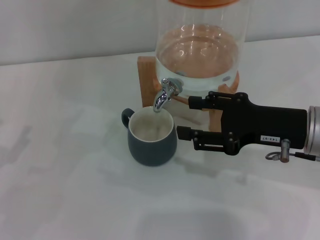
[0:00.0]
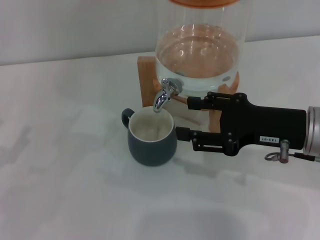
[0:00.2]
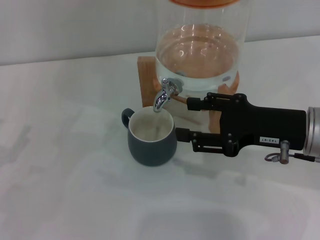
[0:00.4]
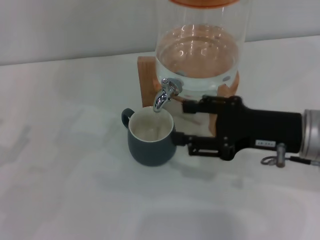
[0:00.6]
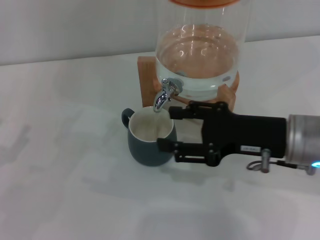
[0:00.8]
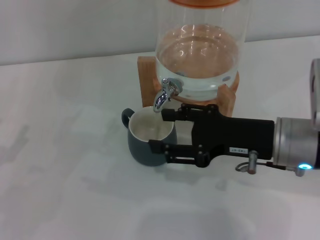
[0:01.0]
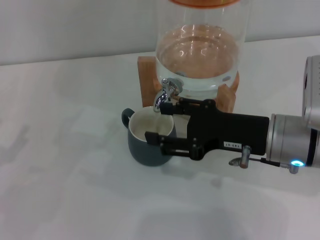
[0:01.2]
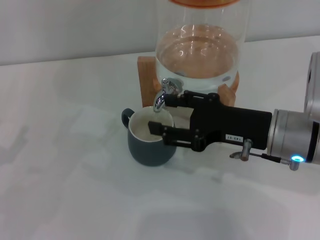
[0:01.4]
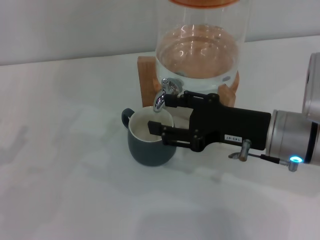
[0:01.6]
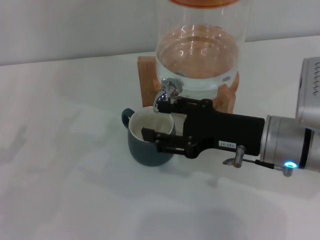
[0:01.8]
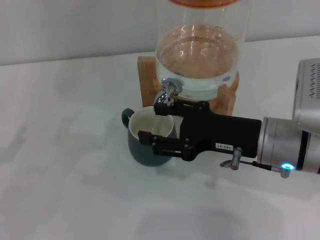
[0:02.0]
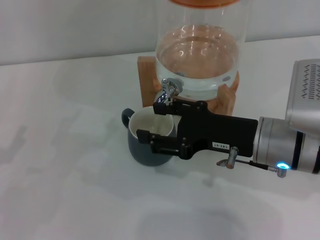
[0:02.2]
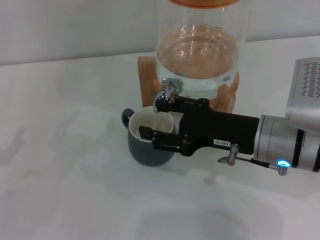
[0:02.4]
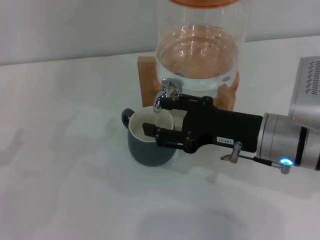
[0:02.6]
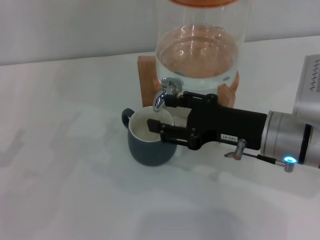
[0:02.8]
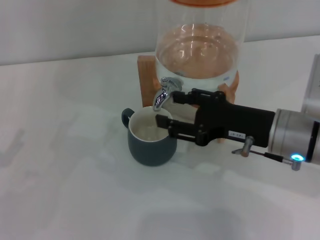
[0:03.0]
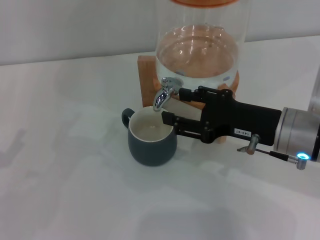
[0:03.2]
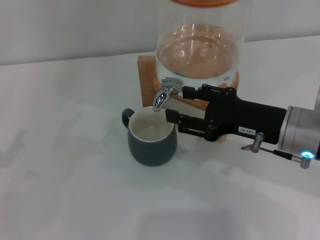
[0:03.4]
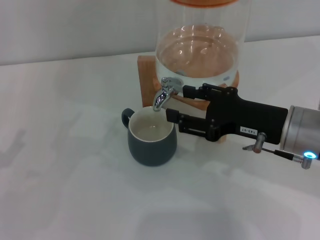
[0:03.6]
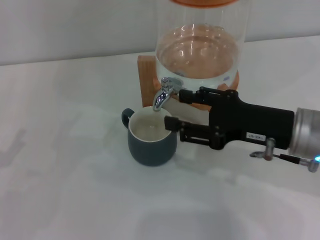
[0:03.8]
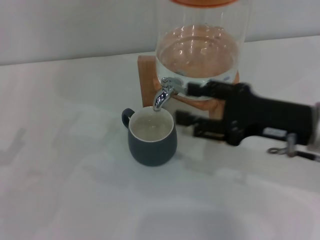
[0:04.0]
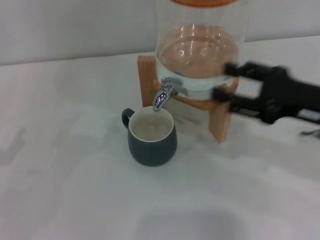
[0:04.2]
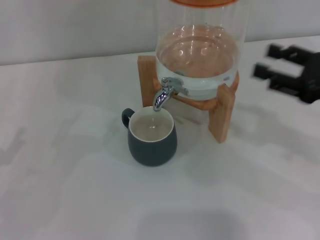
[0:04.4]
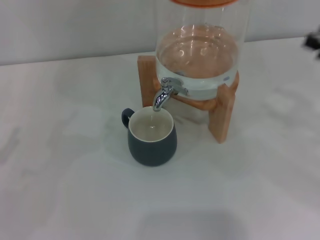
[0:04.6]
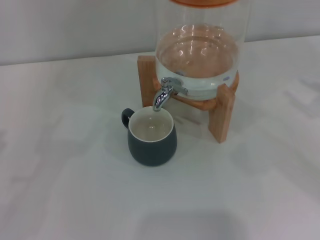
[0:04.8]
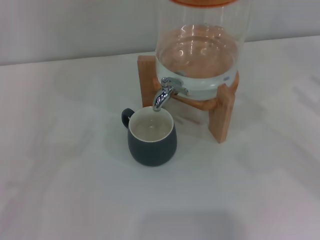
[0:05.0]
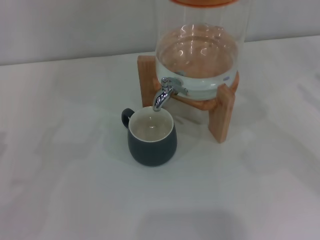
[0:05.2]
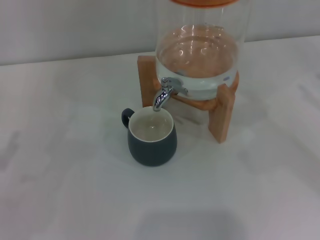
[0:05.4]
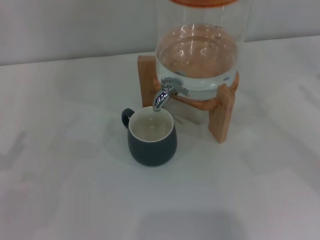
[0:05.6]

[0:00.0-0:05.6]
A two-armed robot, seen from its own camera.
Task of the whole recording: the left gripper pick up the black cup and place it horizontally under the faucet, the right gripper turn on the faucet to fill the cup, and then turn off the faucet.
Step, 0:00.0 to 0:04.0: Close the dispenser valve with the right gripper.
0:00.0 to 0:02.8: The grippers move only a little.
0:02.8 to 0:04.2: The right gripper goes about 10 cm to the right.
0:04.2 to 0:05.6: The right gripper travels to the right by some 15 cm.

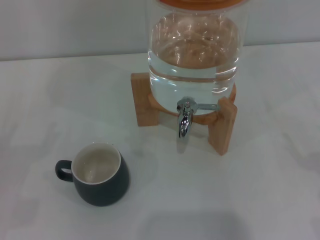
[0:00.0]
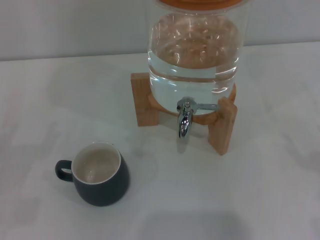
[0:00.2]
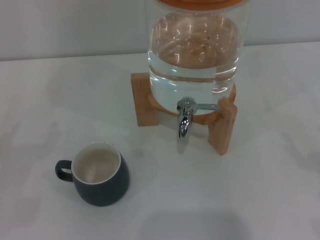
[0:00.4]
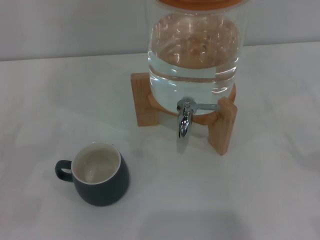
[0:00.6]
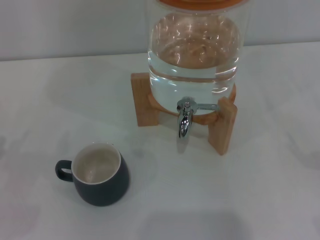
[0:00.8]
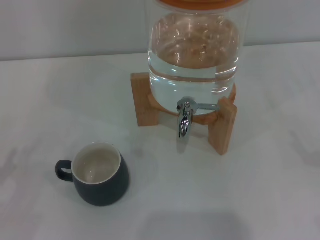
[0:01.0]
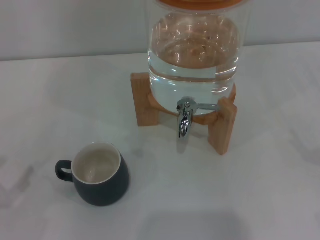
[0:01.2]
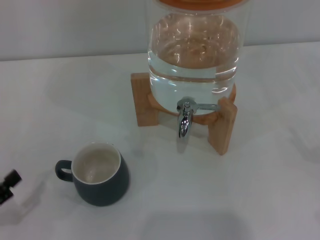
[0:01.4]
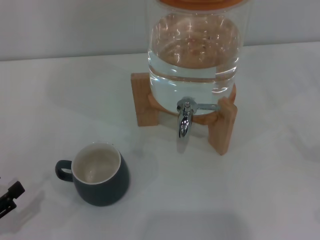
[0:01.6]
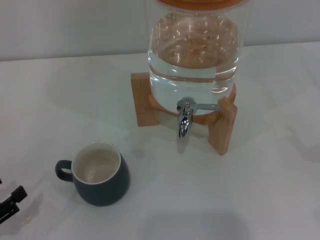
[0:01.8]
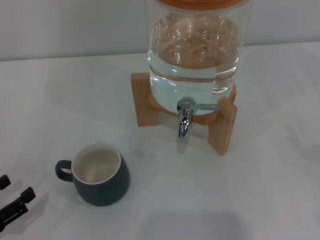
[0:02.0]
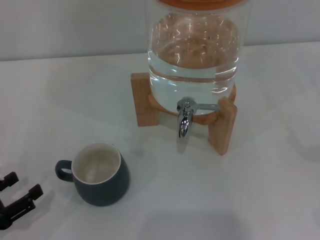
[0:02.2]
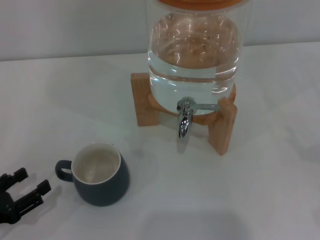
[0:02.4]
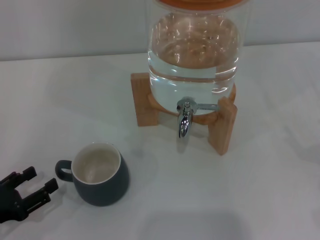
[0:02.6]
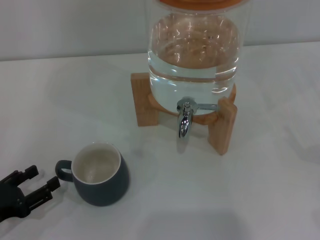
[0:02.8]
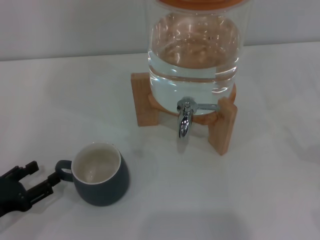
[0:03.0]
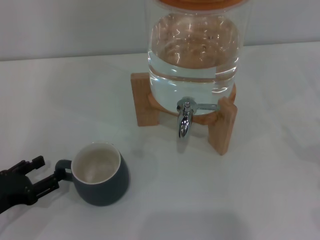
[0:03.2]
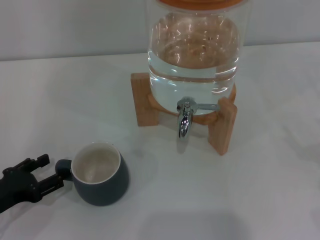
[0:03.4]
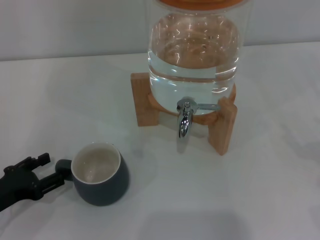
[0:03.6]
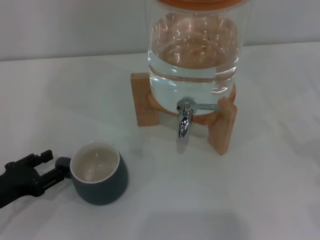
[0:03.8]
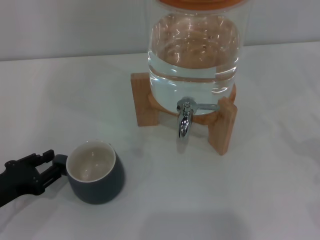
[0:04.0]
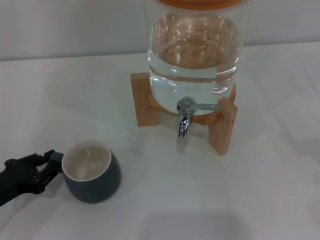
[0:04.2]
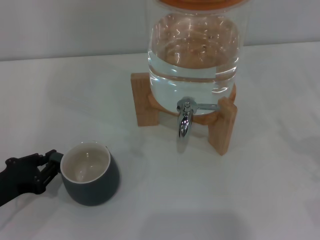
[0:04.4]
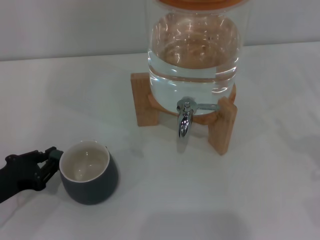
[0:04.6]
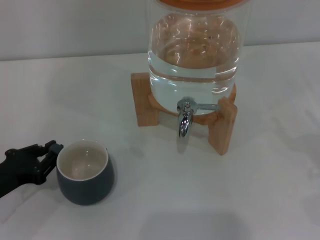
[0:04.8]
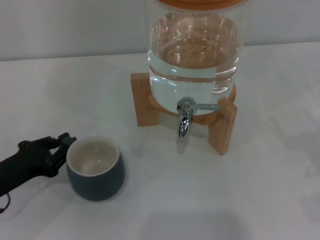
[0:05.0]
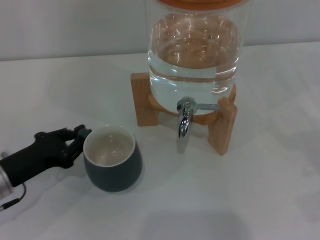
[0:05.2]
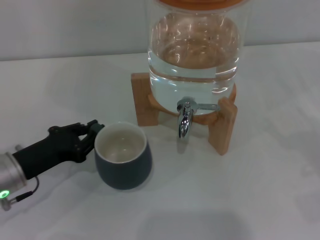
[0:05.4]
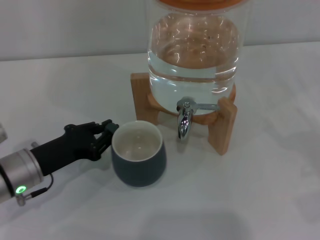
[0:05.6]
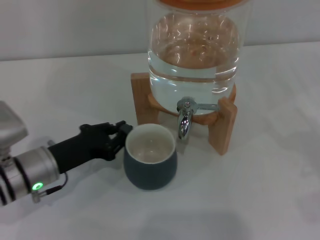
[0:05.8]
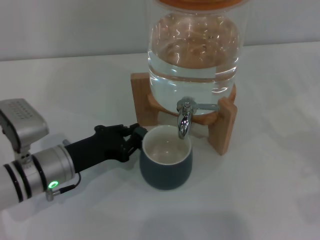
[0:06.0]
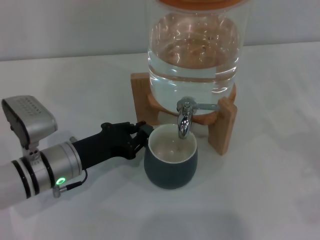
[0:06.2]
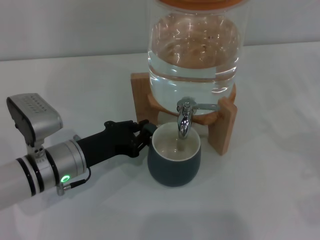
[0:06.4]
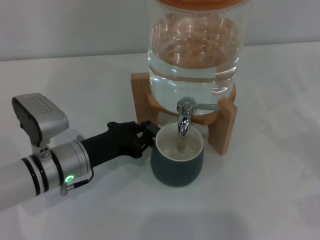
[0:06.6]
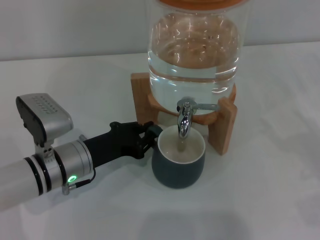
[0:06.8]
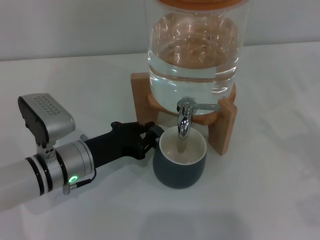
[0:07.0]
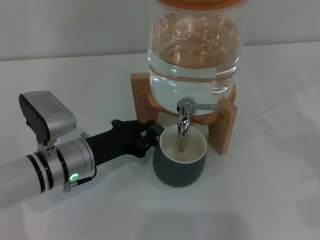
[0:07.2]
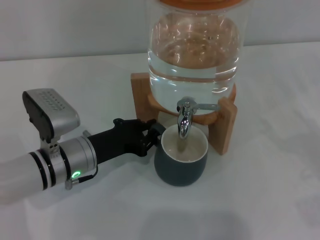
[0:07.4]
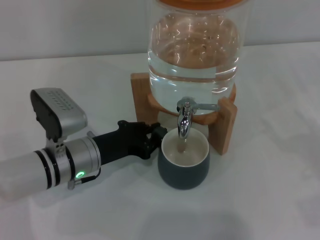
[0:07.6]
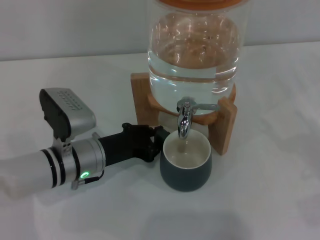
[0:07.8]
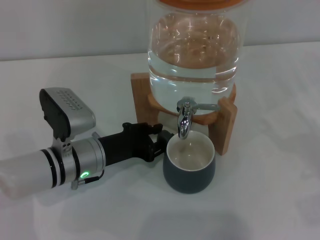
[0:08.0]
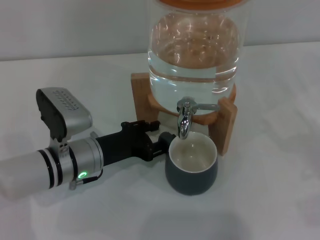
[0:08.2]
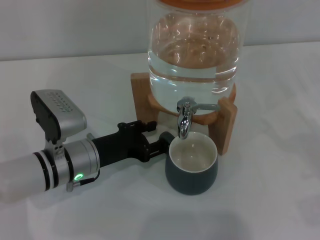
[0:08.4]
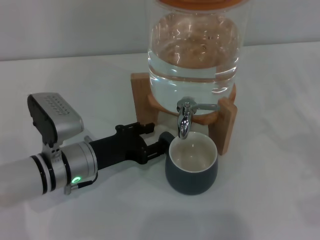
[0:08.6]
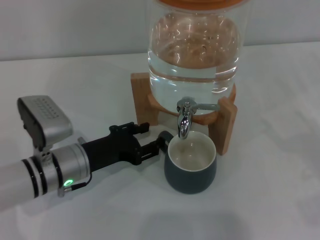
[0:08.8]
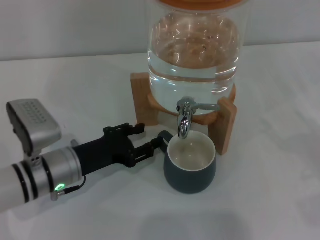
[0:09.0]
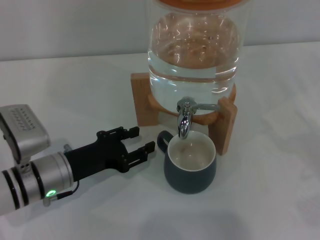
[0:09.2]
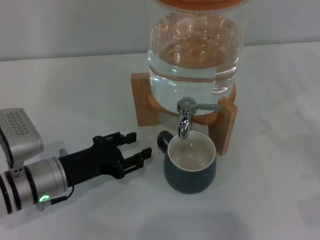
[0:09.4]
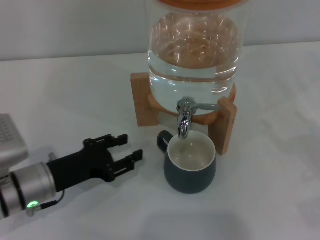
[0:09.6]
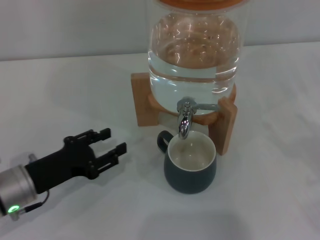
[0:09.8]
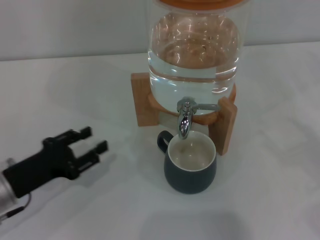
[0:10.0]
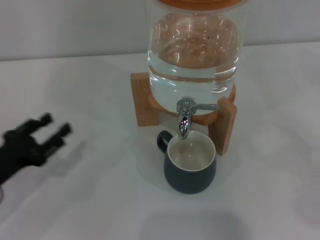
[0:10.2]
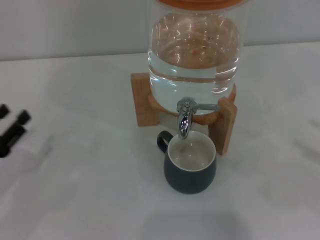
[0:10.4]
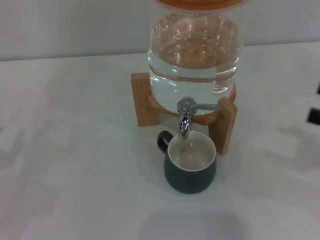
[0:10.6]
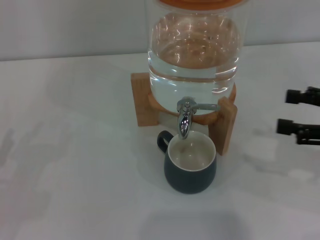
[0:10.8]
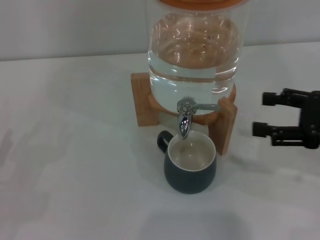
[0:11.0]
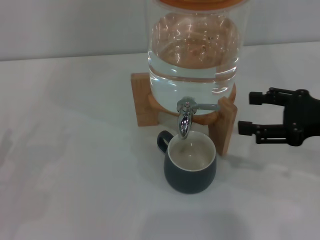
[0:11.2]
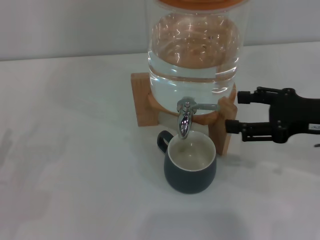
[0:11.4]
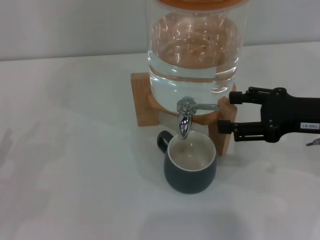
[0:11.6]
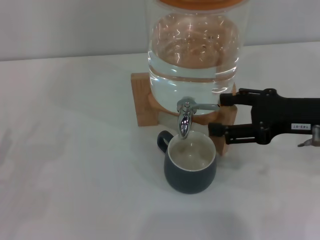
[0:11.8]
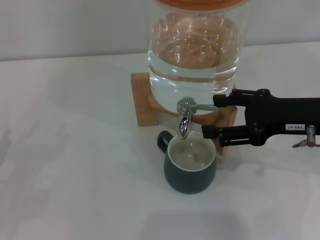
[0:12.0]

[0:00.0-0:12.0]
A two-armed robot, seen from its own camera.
Task of the whole recording: the left gripper pick up the black cup and place it horizontally under the faucet, the right gripper turn on the faucet to fill the cup, and then turn off the faucet.
Step, 0:00.0 to 0:09.6: Move the cup beneath the water dispenser nozzle with the left gripper.
0:00.0 to 0:01.6: The left gripper goes roughly 5 cm backward.
0:01.6 to 0:03.0: The left gripper travels forward by approximately 5 cm.
0:03.0 to 0:04.4: The left gripper closes.
0:04.4 to 0:06.0: The left gripper shifts roughly 15 cm to the right and forward.
0:06.0 to 0:07.6: There are only small adjustments of the grippers.
0:07.6 to 0:09.0: The left gripper opens its fingers.
0:09.0 to 0:10.4: The left gripper heads to the left, covering some 15 cm. The right gripper goes some 10 cm upward.
0:10.4 to 0:12.0: The right gripper moves to the left and forward, approximately 20 cm.

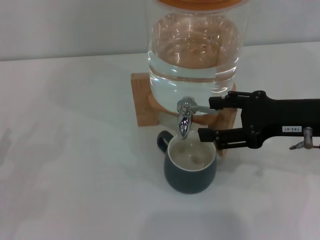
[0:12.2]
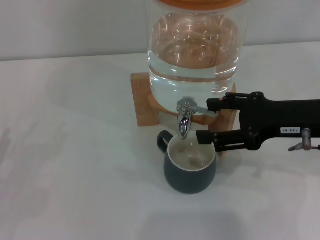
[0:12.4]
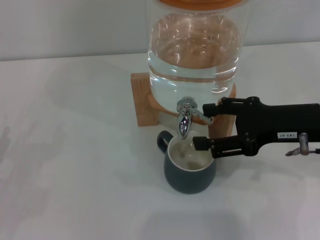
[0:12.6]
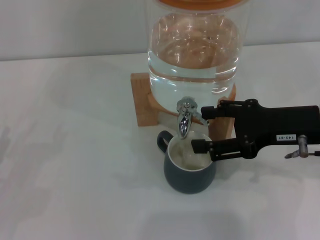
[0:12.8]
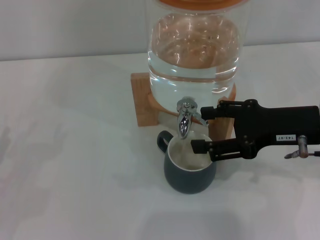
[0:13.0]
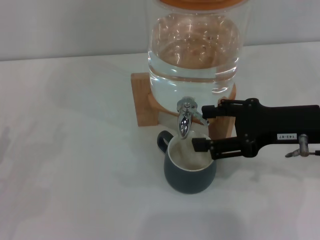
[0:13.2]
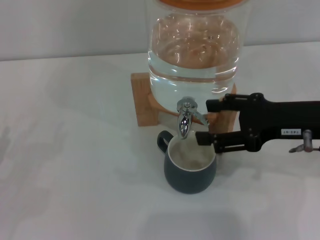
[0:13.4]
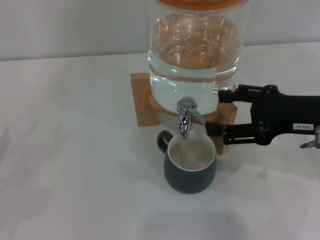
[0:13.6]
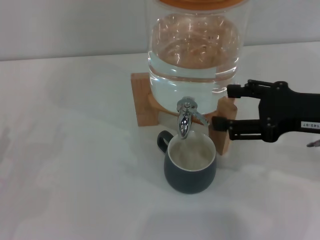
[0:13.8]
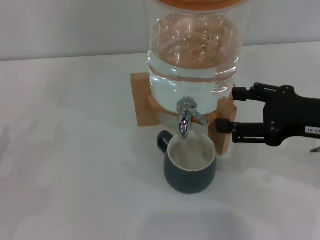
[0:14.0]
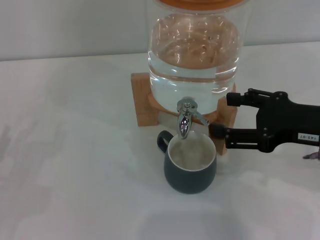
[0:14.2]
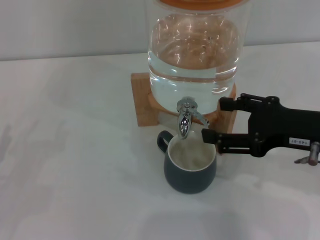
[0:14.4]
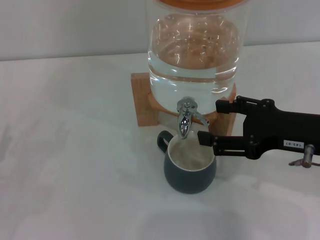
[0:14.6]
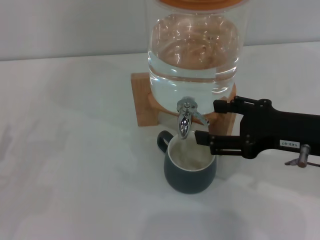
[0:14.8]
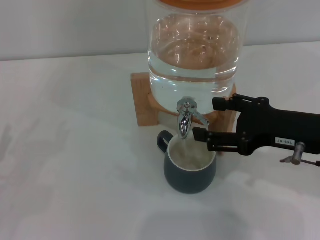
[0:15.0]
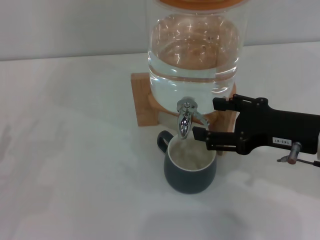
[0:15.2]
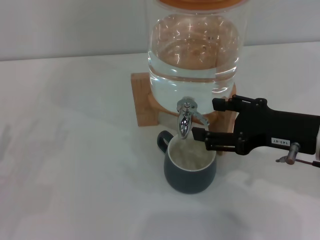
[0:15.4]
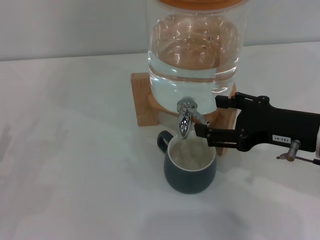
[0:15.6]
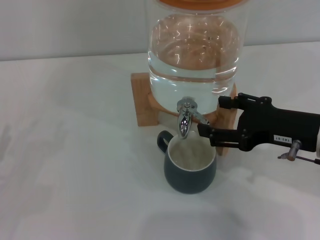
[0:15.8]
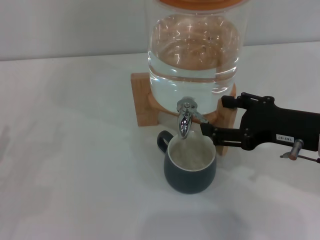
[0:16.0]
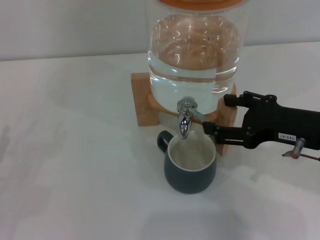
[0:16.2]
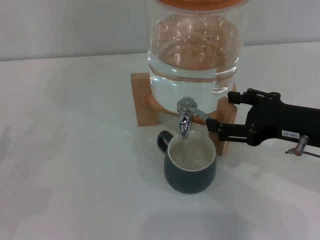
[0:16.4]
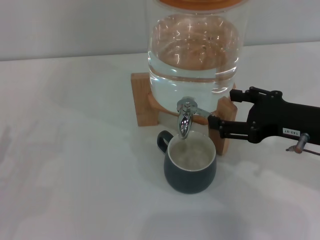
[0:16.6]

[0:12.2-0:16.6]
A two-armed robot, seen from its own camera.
Task of the whole recording: the left gripper pick up the black cup and place it horizontally under the faucet, the right gripper turn on the faucet to fill the cup, and then turn off the faucet.
Step, 0:12.2 to 0:15.0: Open the dispenser valve and fill the cup with water with the right gripper.
0:12.2 to 0:16.6: The grippers move only a little.
